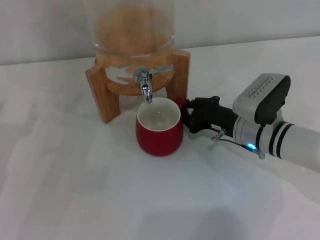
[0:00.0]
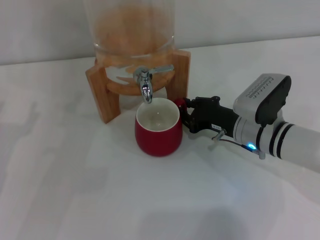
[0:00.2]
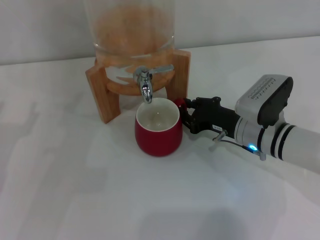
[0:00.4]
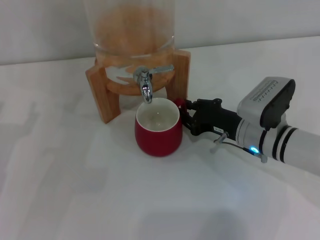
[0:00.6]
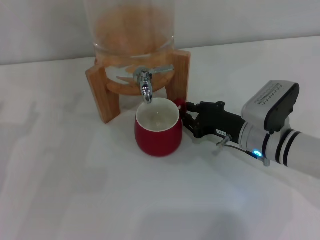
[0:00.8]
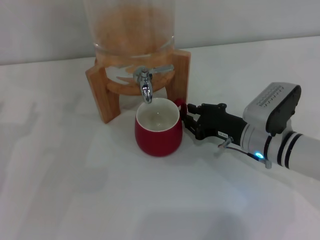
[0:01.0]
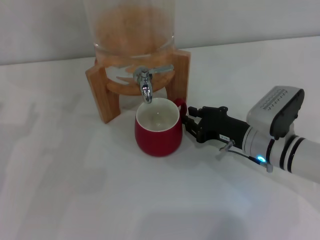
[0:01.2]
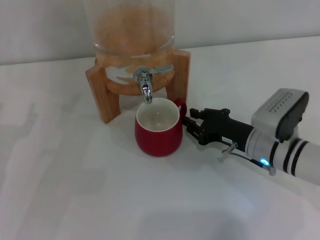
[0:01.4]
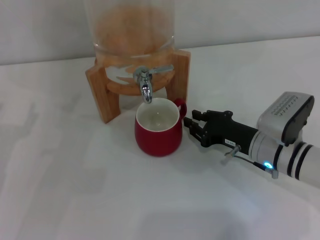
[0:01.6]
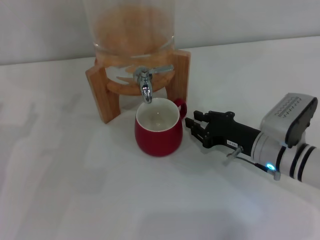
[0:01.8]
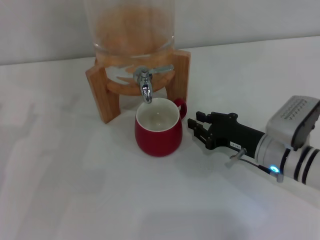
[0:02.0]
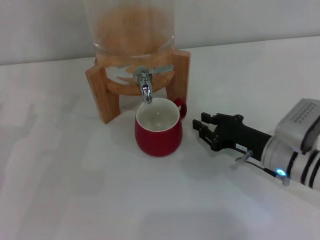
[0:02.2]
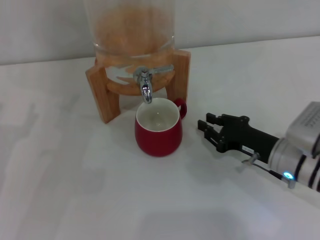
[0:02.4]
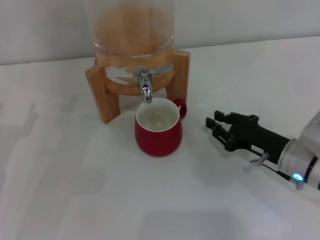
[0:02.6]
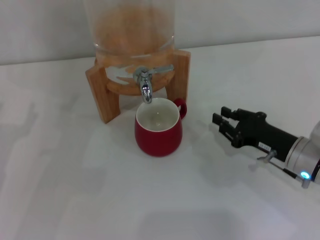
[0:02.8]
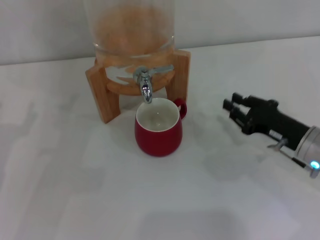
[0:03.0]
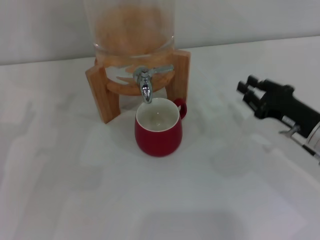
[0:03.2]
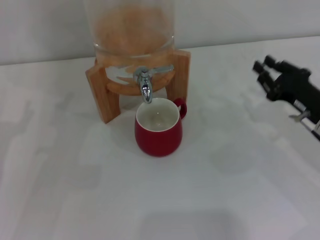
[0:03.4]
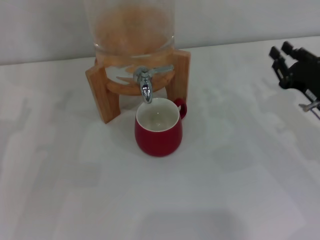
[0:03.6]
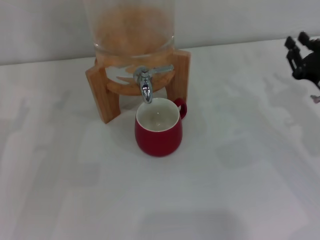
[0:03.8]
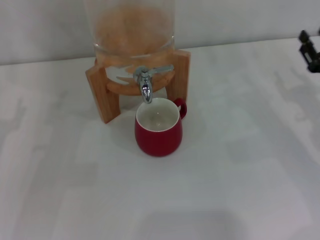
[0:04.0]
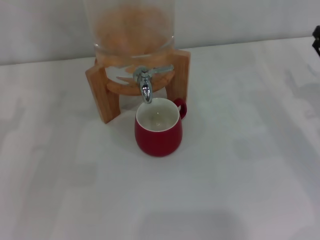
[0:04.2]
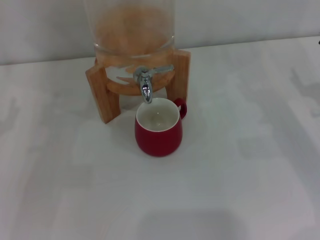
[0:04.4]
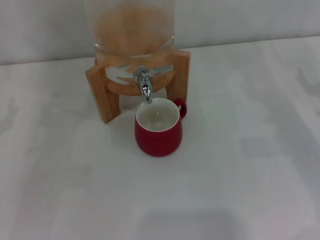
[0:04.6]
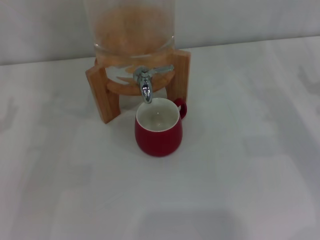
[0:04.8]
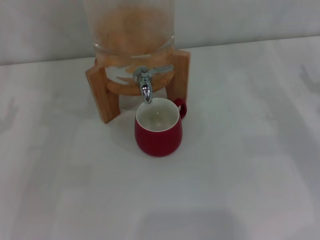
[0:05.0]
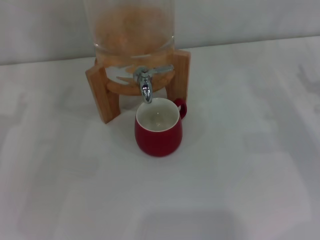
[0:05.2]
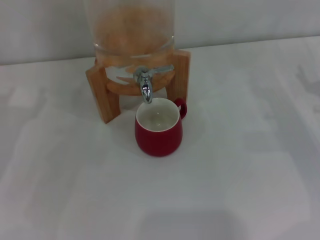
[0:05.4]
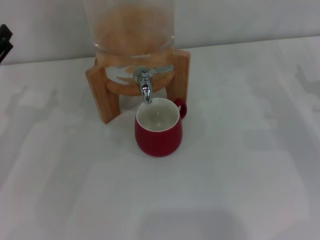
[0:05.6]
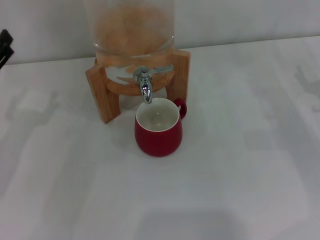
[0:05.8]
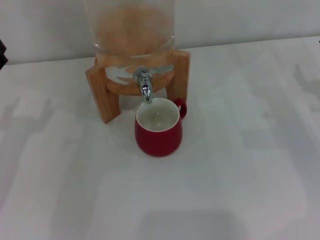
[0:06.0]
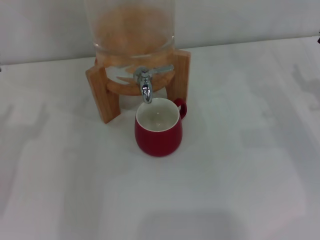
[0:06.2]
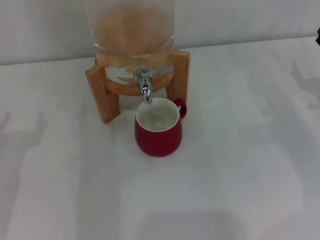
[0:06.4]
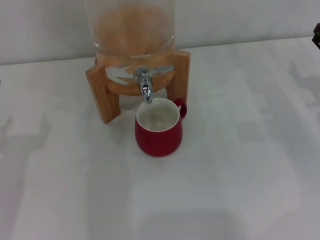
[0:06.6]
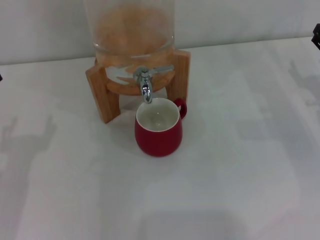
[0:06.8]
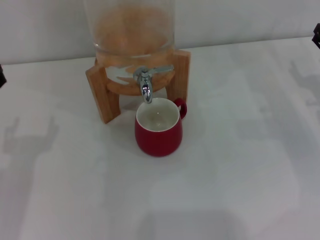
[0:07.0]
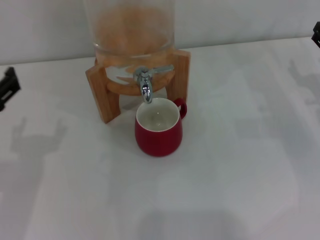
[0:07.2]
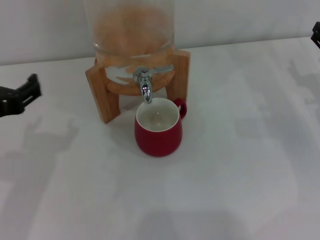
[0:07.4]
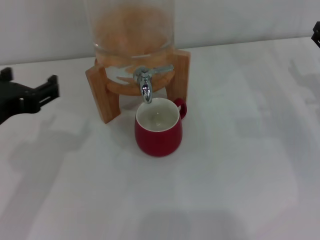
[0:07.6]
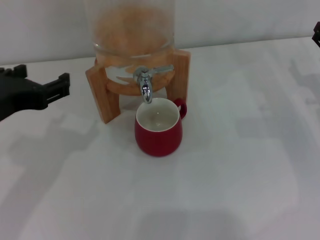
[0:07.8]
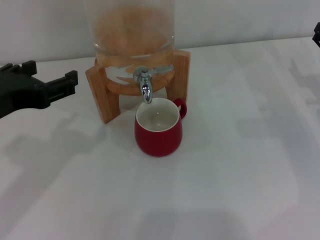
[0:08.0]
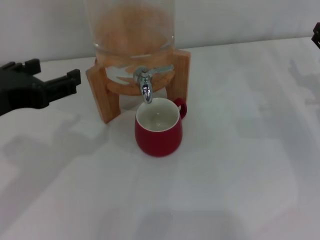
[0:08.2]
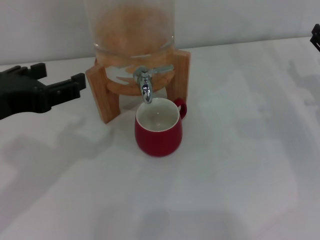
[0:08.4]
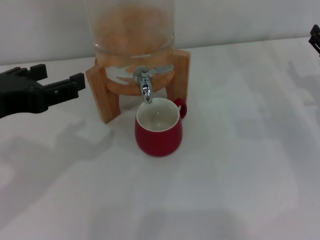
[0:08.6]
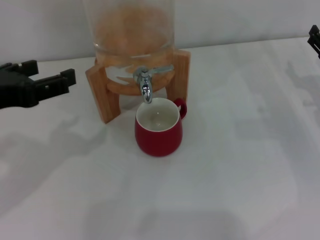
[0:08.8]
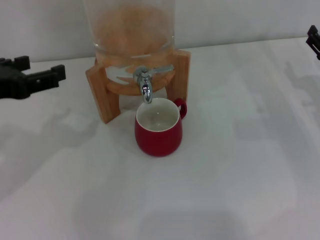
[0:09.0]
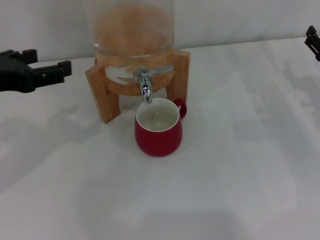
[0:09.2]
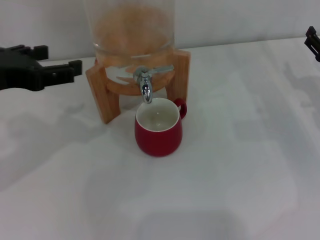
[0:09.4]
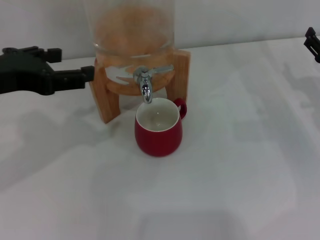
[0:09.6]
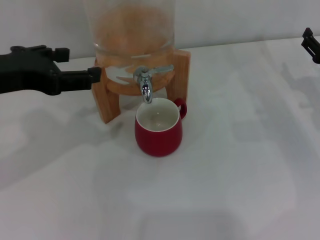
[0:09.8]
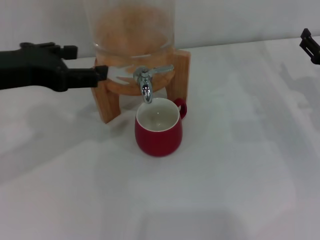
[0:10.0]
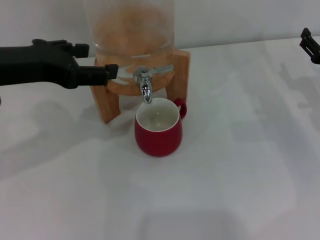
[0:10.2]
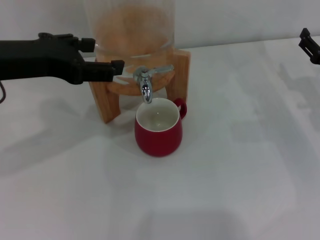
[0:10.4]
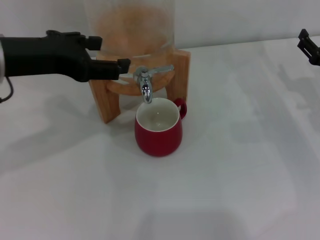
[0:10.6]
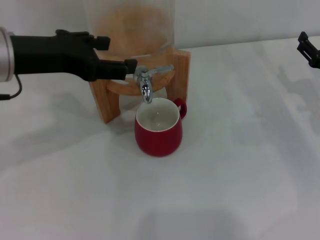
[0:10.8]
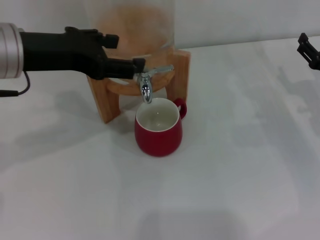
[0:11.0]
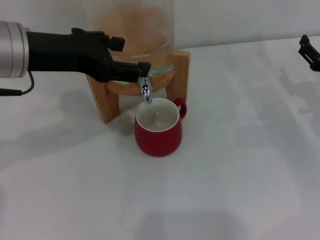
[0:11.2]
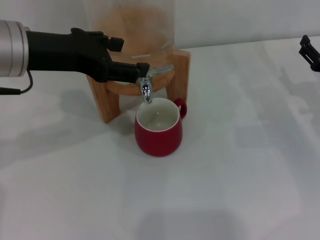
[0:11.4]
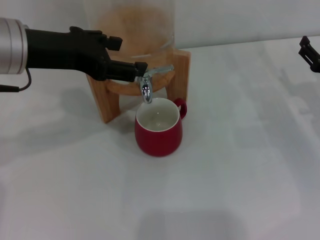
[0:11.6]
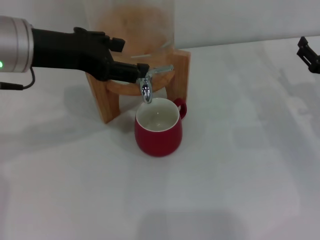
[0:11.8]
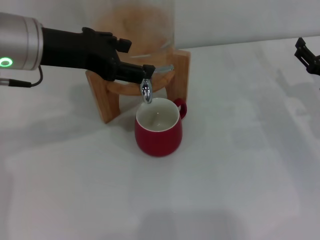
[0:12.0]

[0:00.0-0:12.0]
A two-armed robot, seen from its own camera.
Task of the whole recording: the right gripper pick up the red cup and place it horizontally under the faucet, the left gripper turn on the faucet to fill the cup, and then turn off the faucet.
0:00.0 to 0:01.6: The grippers make only small movements.
0:01.6 to 0:03.0: The right gripper goes roughly 5 cm to the right.
0:03.0 to 0:04.4: The right gripper goes some 10 cm to the right, and opens up.
0:06.0 to 0:07.6: The left gripper travels upward and to the right by some 10 cm.
0:07.6 to 0:09.0: The left gripper changes place by some 5 cm.
0:09.0 to 0:10.4: The left gripper is displaced to the right by roughly 5 cm.
0:10.4 to 0:12.0: The left gripper changes place by roughly 5 cm.

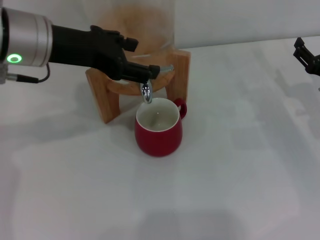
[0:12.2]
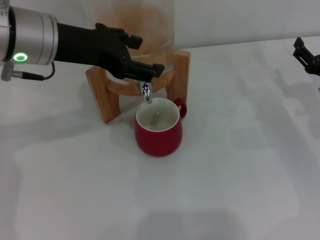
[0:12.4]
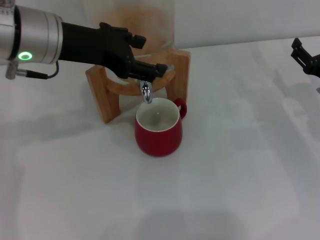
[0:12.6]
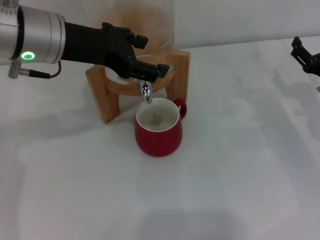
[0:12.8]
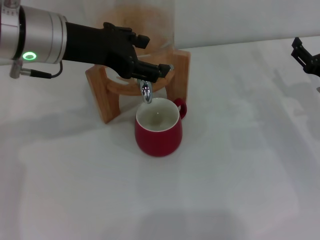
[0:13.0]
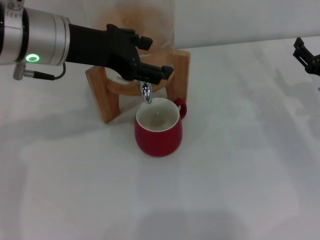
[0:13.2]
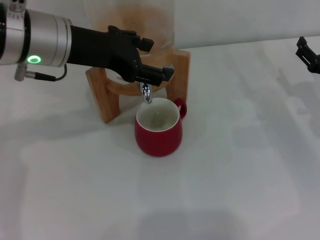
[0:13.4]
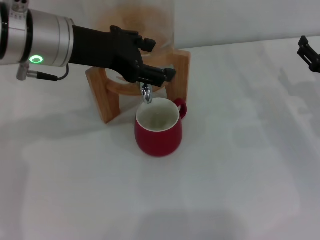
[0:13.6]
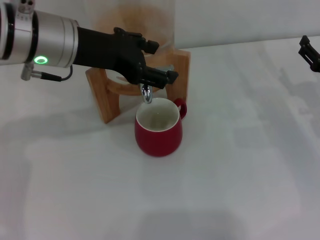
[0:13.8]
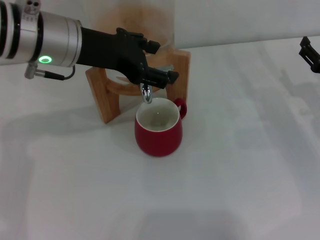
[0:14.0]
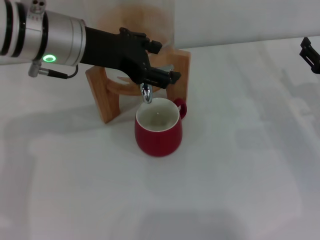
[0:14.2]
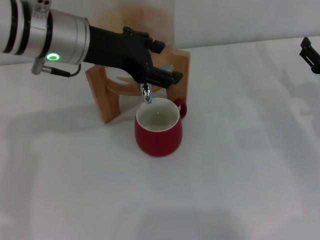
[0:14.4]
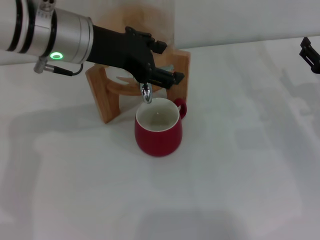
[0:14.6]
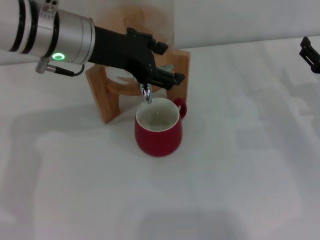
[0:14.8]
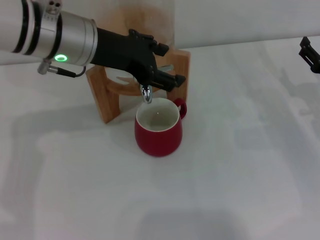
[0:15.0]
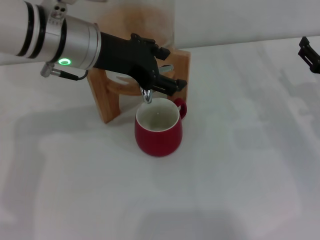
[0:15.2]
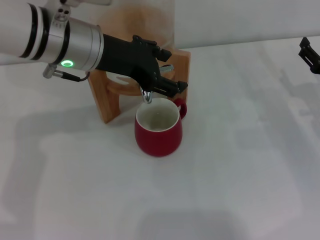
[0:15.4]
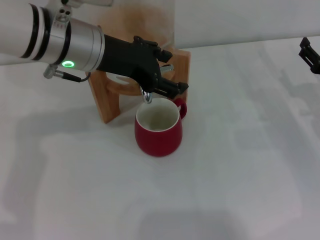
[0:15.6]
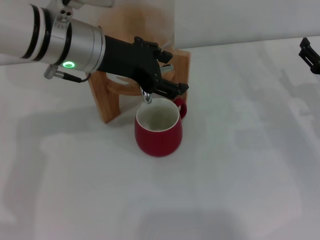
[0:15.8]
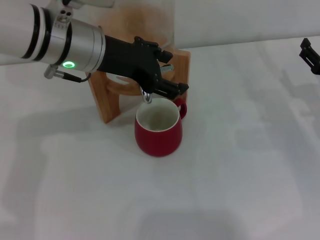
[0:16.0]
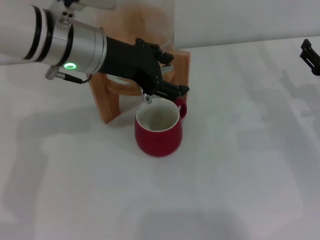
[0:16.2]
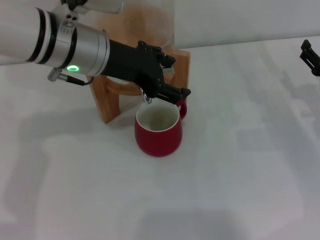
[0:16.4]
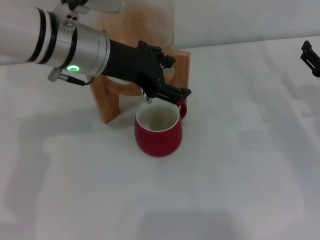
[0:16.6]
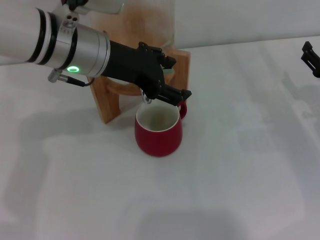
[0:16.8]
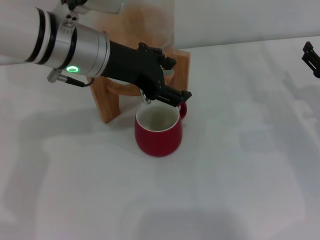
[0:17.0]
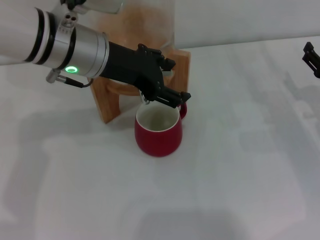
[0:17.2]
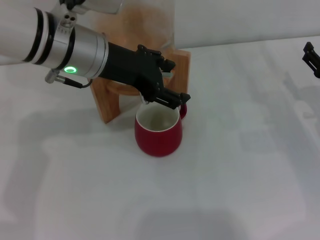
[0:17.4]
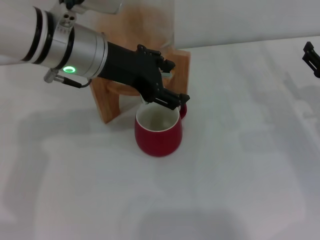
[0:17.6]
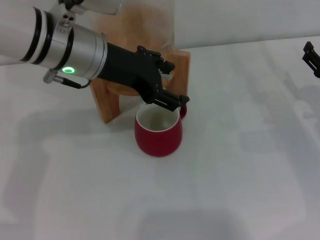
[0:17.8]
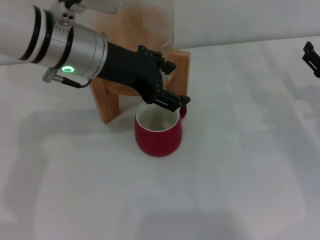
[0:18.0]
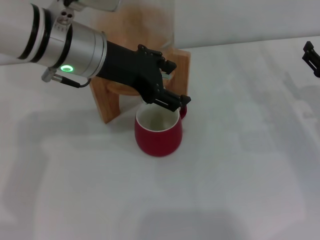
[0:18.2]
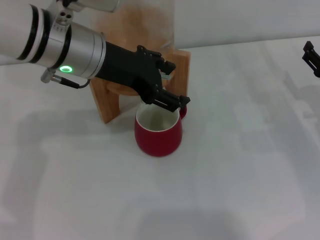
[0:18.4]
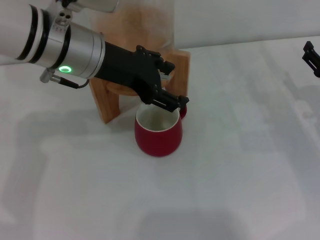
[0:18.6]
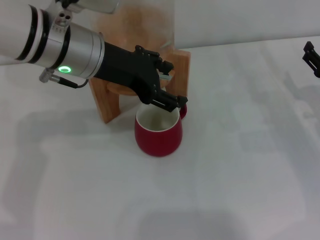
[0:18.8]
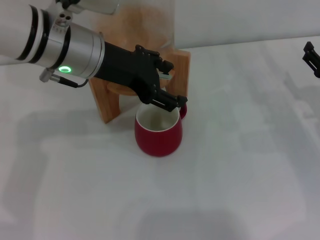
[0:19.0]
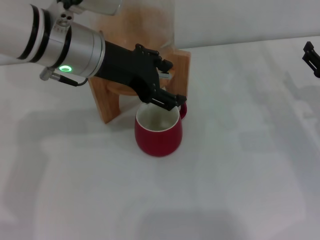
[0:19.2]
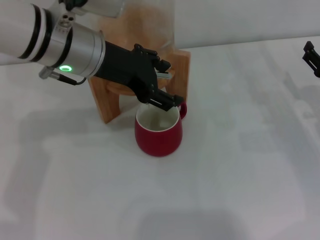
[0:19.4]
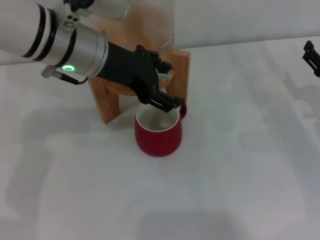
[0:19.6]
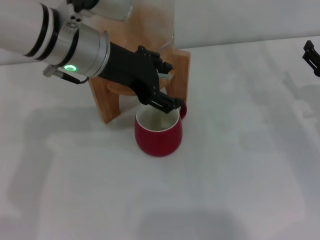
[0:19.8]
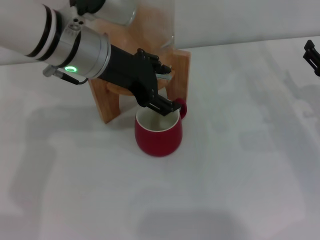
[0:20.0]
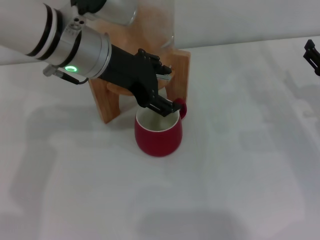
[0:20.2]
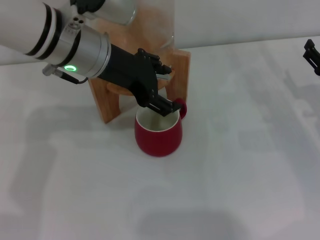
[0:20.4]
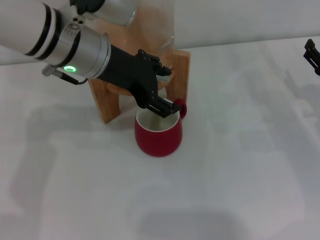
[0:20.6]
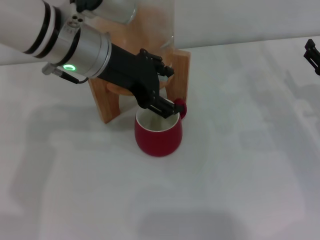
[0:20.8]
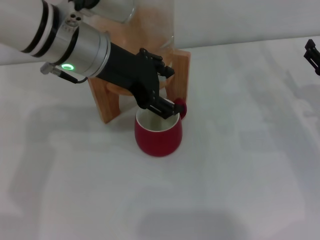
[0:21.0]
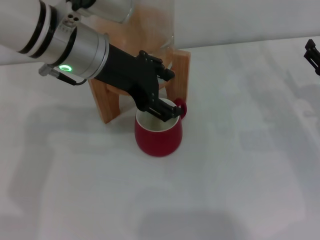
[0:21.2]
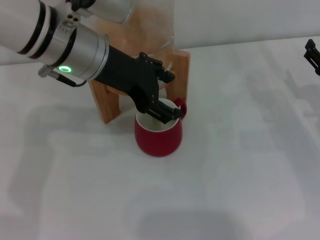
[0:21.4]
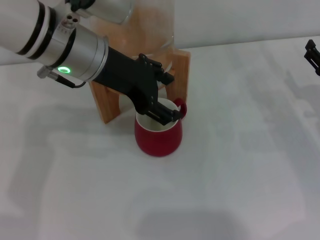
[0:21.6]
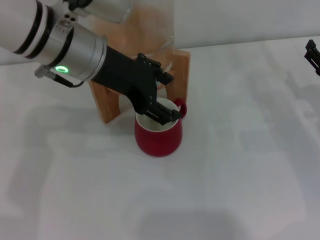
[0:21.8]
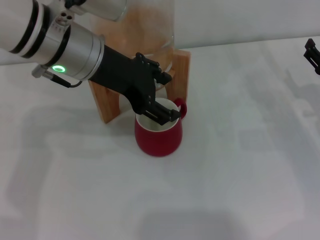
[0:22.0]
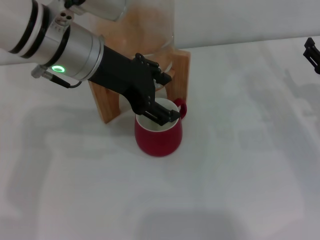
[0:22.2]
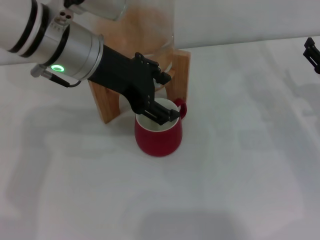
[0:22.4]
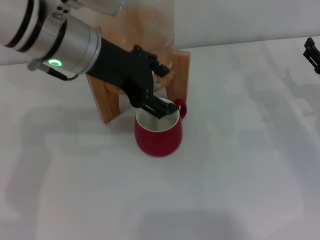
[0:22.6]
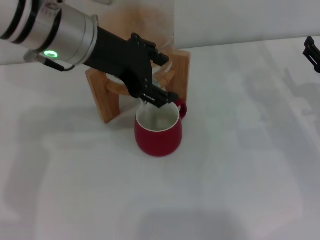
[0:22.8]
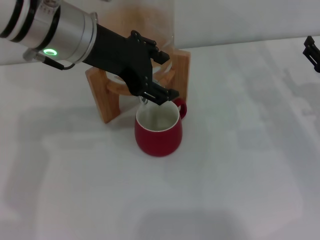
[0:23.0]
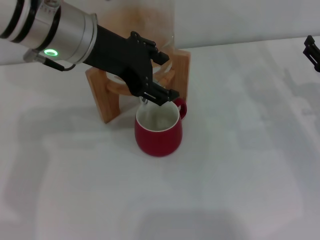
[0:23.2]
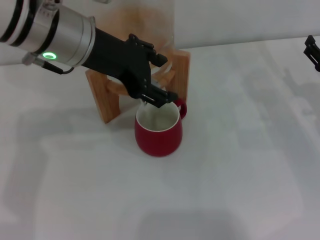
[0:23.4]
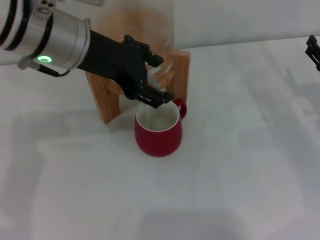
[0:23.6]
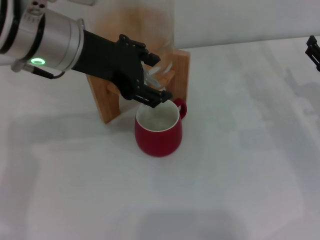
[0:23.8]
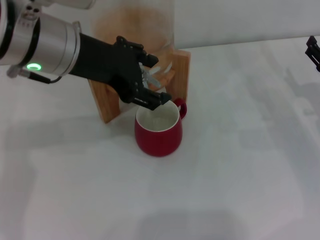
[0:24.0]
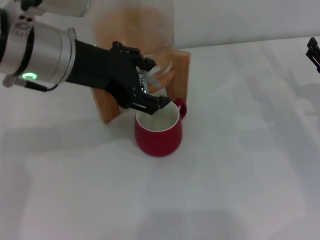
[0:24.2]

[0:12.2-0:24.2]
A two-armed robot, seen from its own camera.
Task of the whole recording: the right gripper pick up the red cup and place it horizontally under the faucet, the left gripper turn on the faucet to fill the cup, and then turn off the faucet.
Step, 0:12.2 to 0:22.6: Open the dispenser valve and fill the cup with water with the left gripper.
0:12.2 to 0:15.2: The grippers make only small movements.
0:15.2 to 0:16.6: Both grippers stay about where they are.
0:16.6 to 0:18.2: Both grippers stay put.
0:18.2 to 0:19.8: The grippers move only a little.
0:19.8 to 0:21.2: The two grippers keep their place.
0:21.2 to 0:24.2: The grippers make only small movements.
